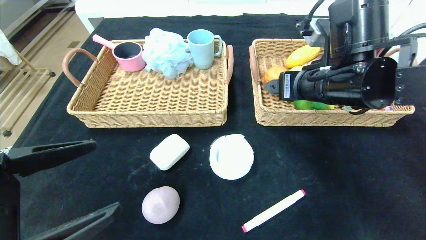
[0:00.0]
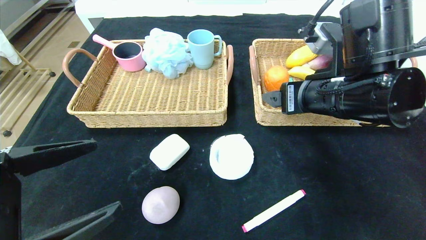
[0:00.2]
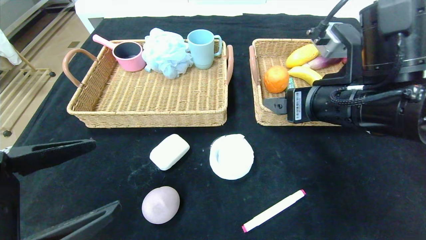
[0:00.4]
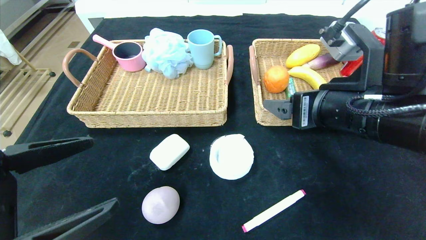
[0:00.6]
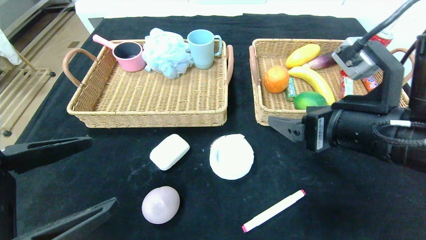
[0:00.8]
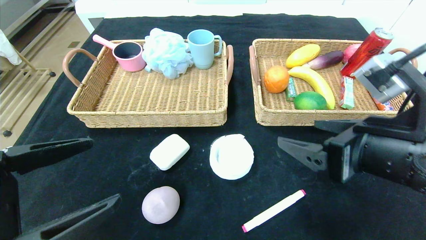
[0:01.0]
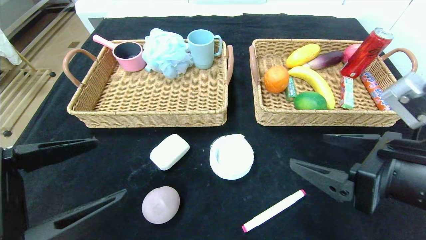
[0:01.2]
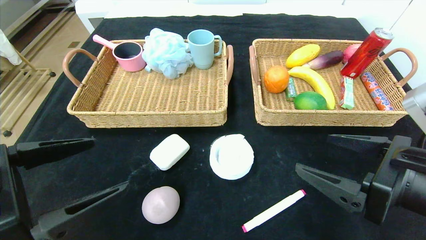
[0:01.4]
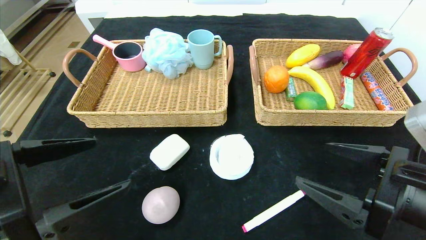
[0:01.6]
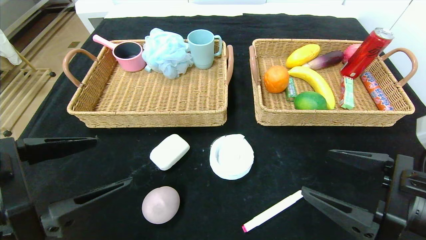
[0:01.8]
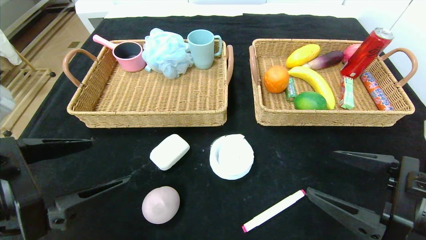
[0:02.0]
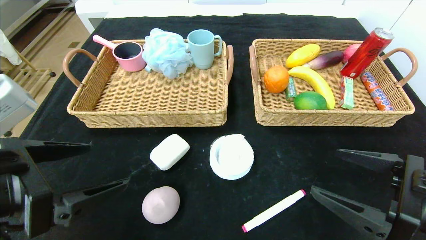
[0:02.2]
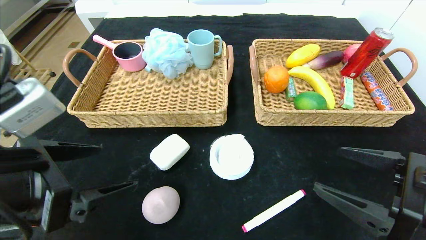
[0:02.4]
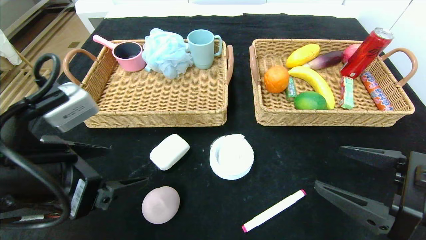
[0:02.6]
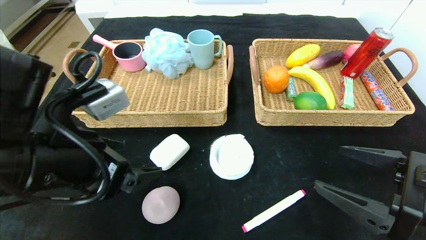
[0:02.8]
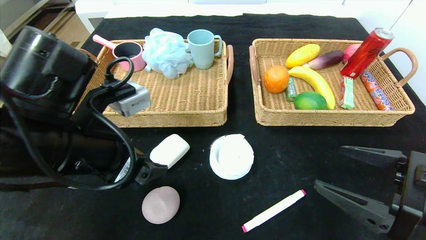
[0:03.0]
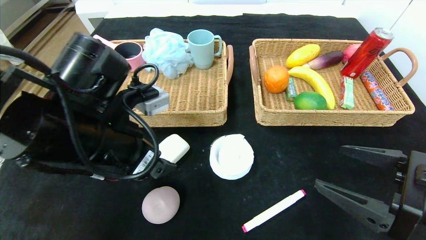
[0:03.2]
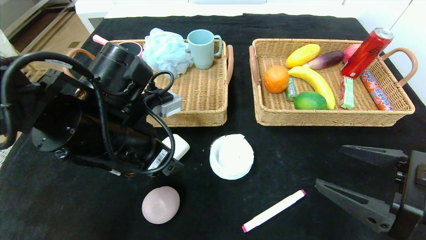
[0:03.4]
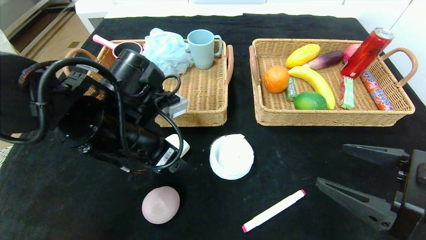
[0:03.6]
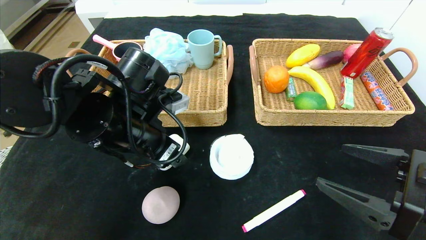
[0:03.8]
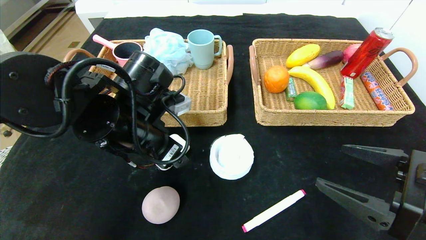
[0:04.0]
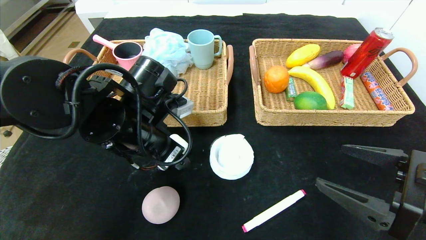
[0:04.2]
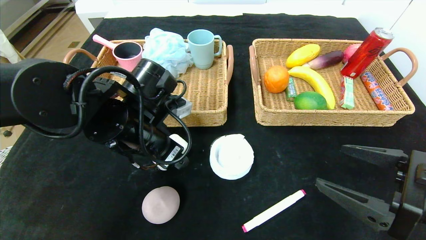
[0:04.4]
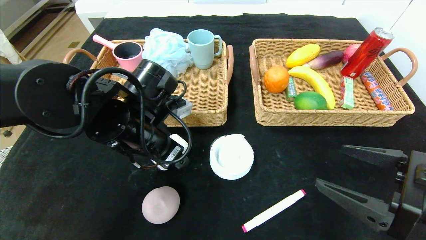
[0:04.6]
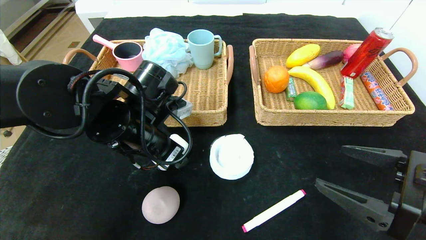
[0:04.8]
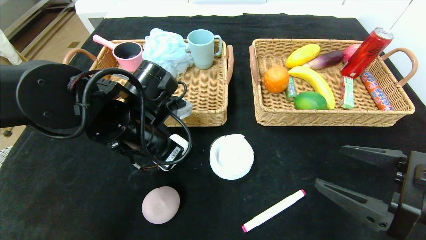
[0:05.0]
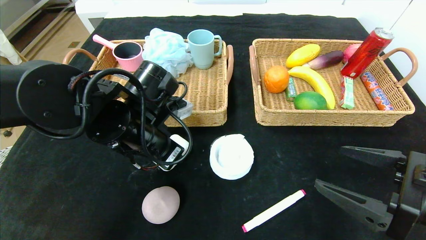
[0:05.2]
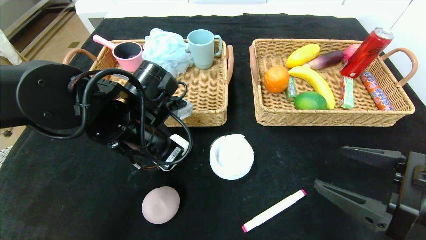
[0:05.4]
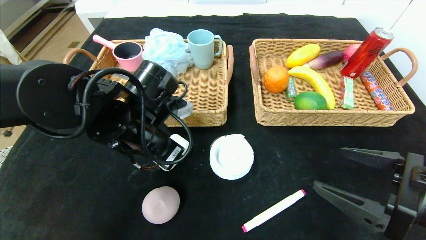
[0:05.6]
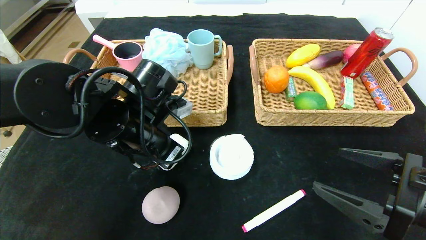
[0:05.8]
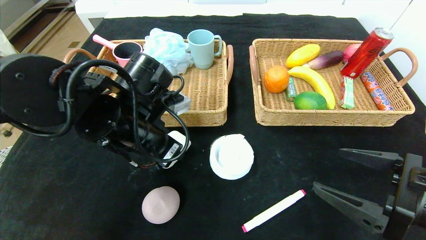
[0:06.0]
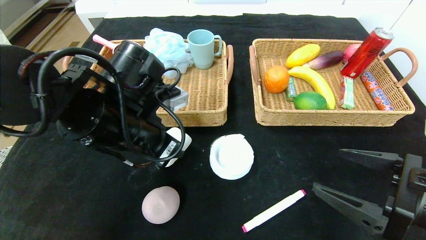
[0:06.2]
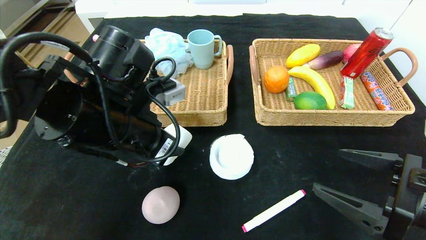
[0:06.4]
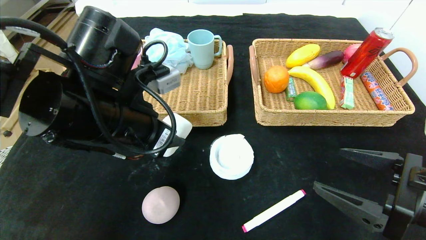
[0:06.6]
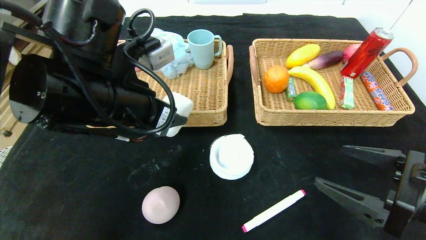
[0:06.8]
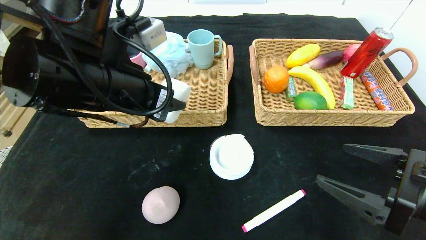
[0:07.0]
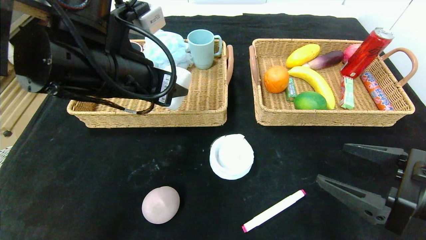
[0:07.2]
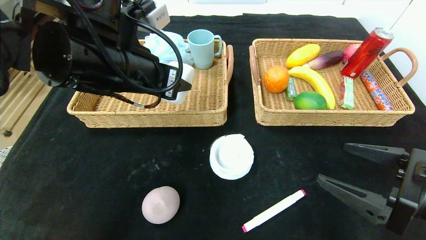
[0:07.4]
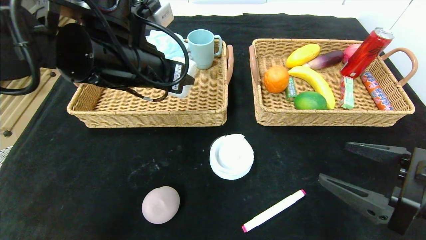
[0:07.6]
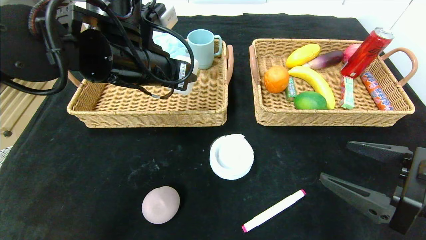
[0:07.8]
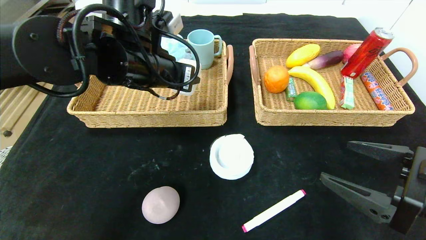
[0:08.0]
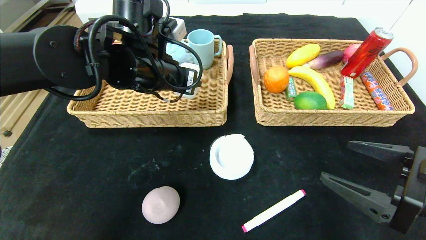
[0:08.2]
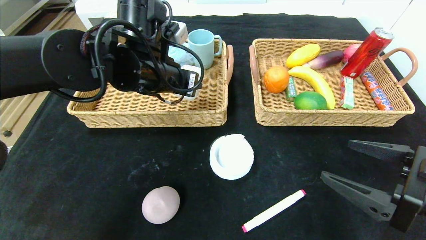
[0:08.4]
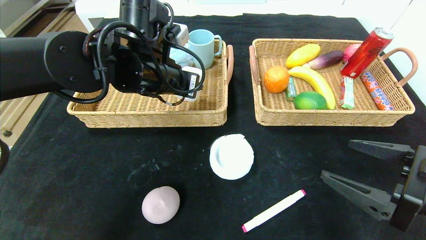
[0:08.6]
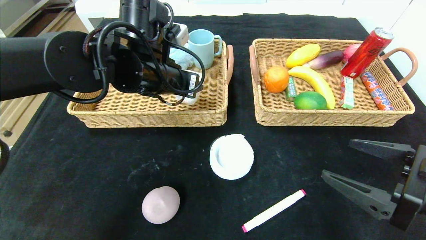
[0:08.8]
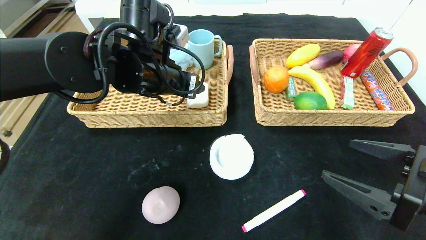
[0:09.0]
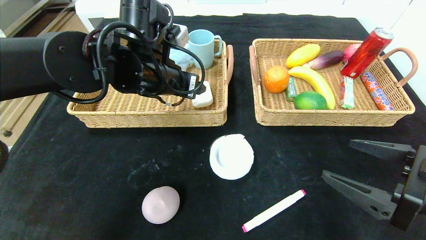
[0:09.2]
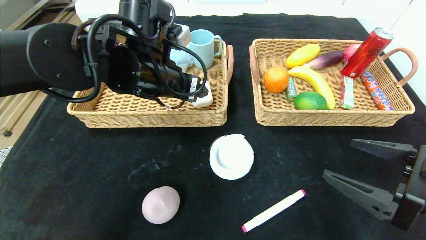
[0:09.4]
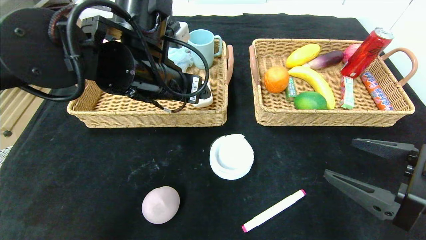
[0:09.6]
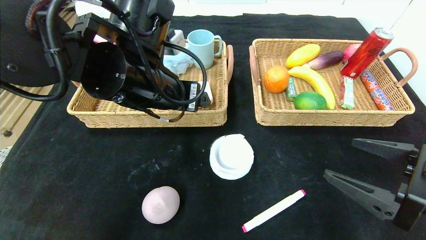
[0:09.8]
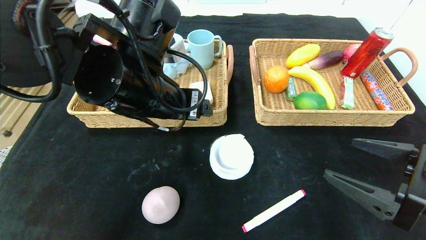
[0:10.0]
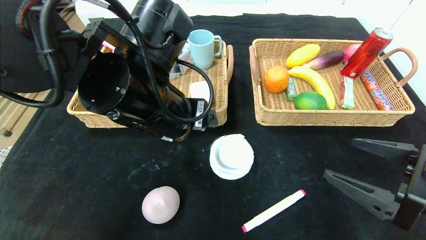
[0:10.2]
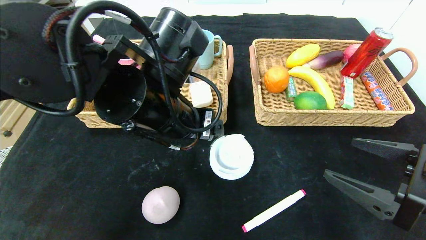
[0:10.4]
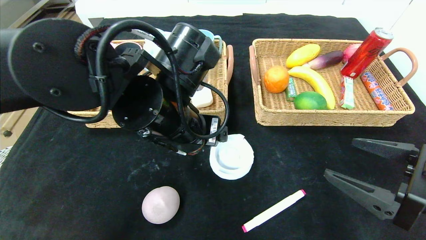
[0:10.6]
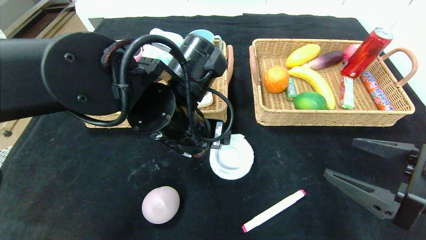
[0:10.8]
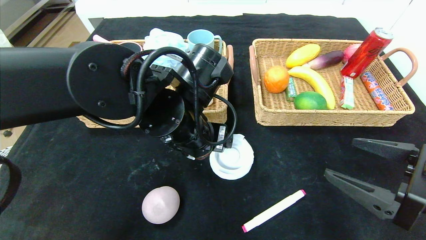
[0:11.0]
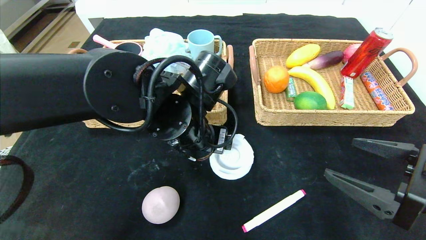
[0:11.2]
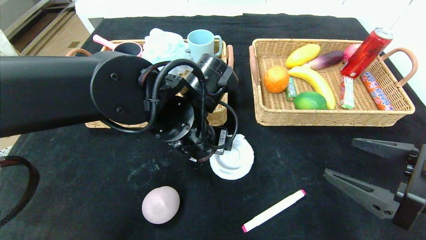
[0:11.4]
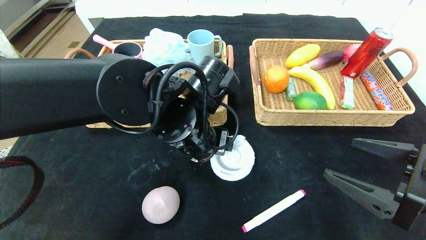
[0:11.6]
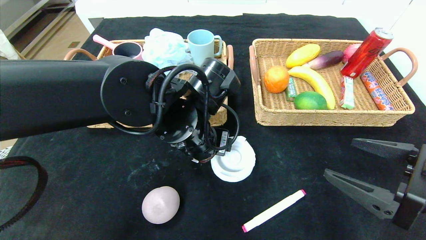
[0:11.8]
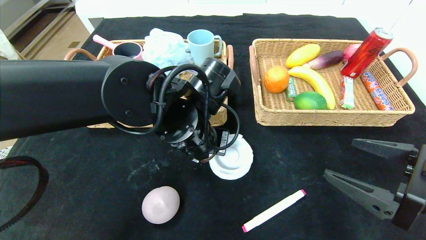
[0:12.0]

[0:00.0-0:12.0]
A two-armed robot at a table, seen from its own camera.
Step, 0:00.0 to 0:09.4: Grasp the white eraser and put it in the left basket.
0:00.0 to 0:01.6: The right gripper heads backward, downward and to the right, covering some 20 cm.
0:01.6 to 0:03.0: The left gripper travels forward and to the right by some 10 cm.
0:03.0 to 0:04.4: The left gripper shifts roughly 5 cm forward.
0:04.4 to 0:06.0: The left gripper closes its fingers.
0:06.0 to 0:07.6: The left gripper goes about 10 cm upward.
0:07.6 to 0:09.0: The left gripper changes place by about 5 cm.
0:09.0 to 0:10.4: The left gripper moves backward, approximately 10 cm.
0:10.4 to 0:12.0: The left gripper ends up about 5 cm from where it was, and closes.

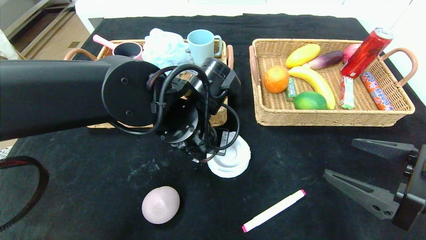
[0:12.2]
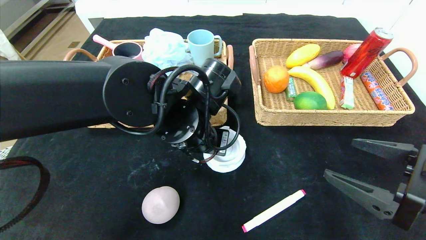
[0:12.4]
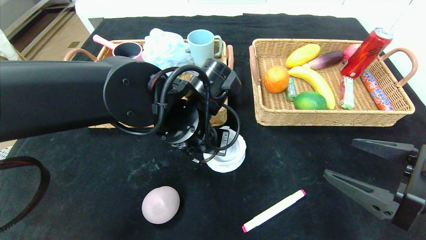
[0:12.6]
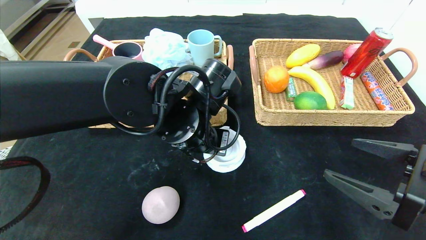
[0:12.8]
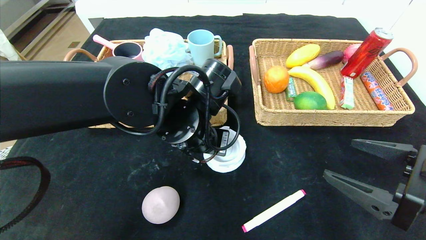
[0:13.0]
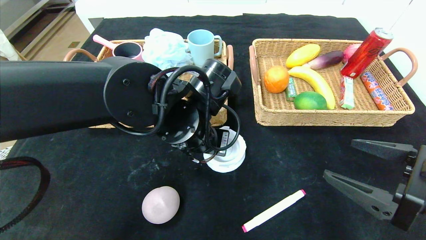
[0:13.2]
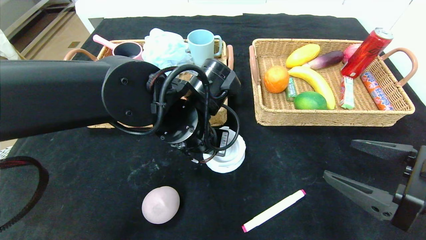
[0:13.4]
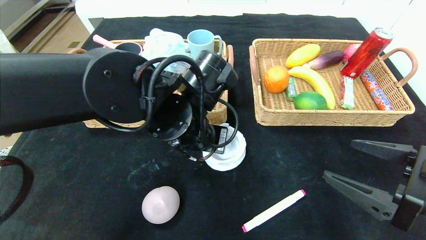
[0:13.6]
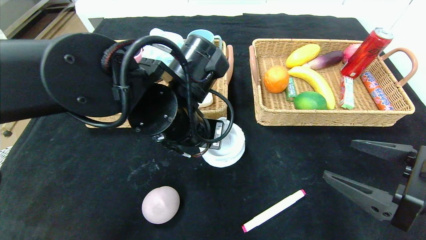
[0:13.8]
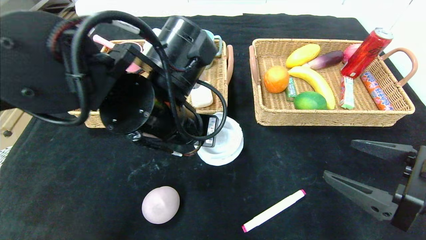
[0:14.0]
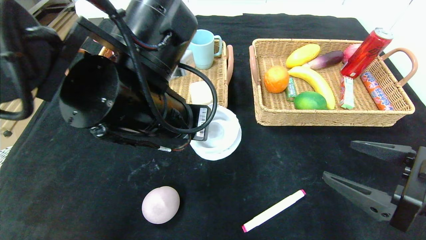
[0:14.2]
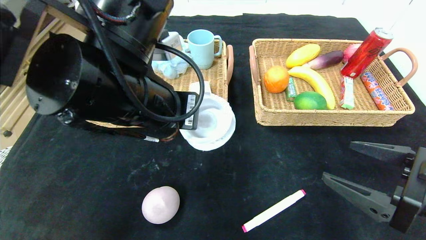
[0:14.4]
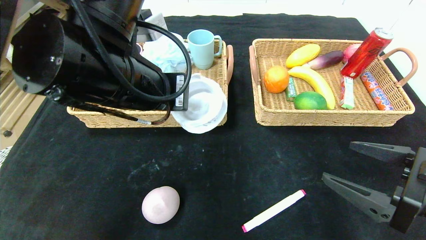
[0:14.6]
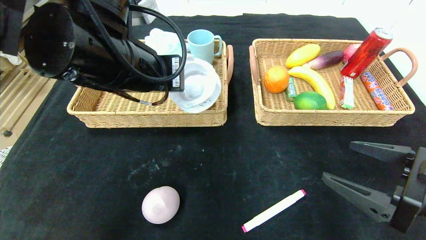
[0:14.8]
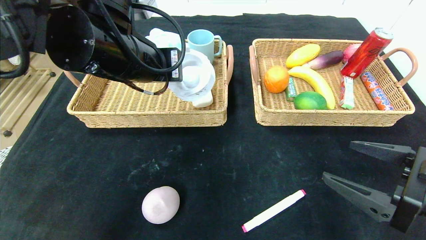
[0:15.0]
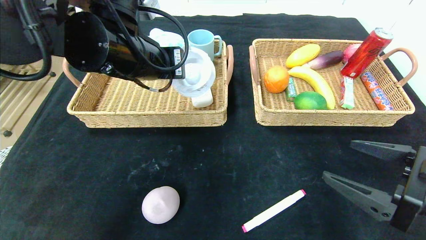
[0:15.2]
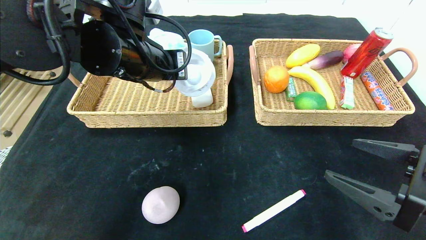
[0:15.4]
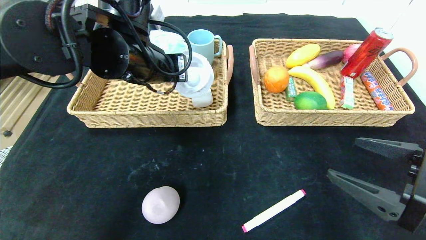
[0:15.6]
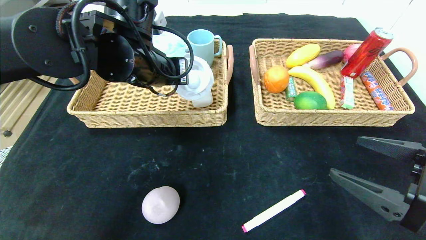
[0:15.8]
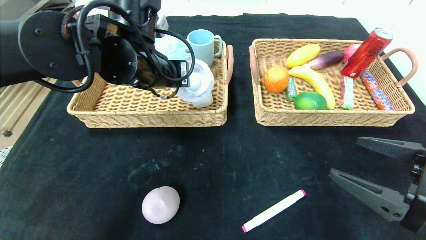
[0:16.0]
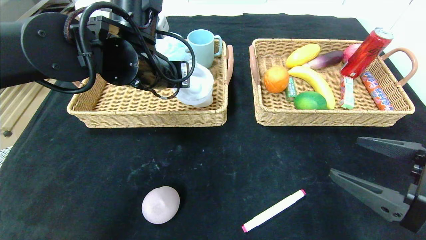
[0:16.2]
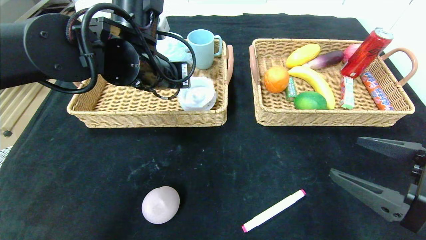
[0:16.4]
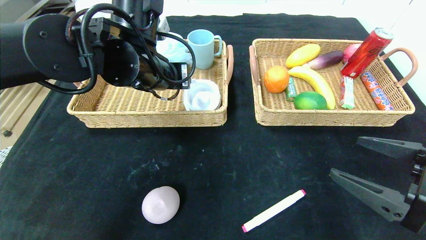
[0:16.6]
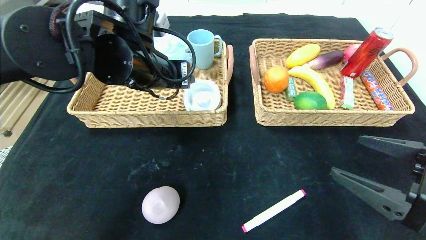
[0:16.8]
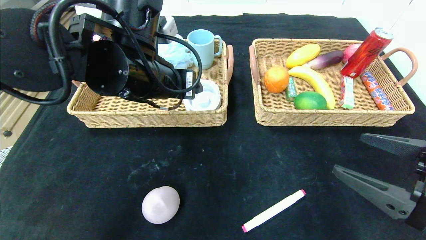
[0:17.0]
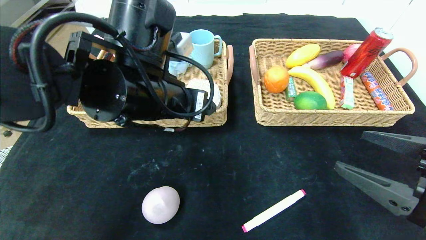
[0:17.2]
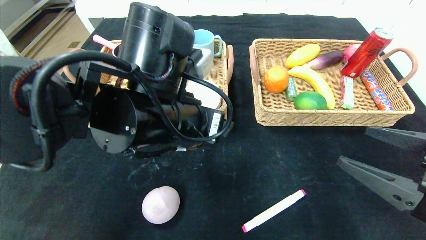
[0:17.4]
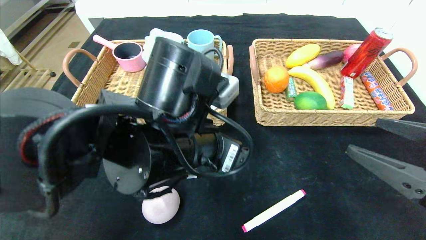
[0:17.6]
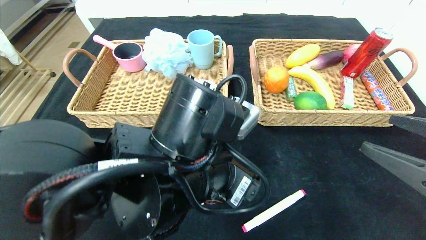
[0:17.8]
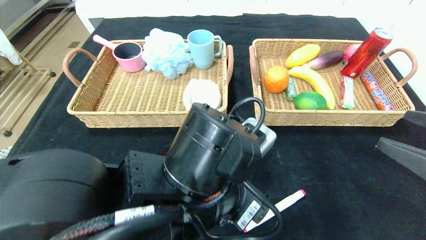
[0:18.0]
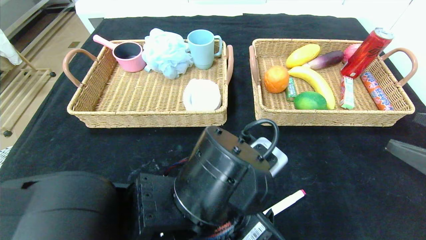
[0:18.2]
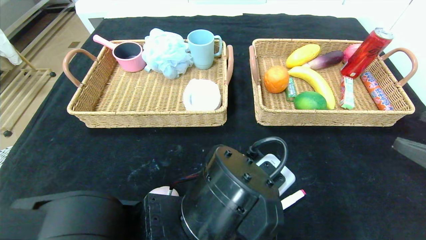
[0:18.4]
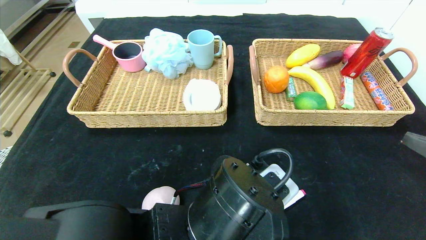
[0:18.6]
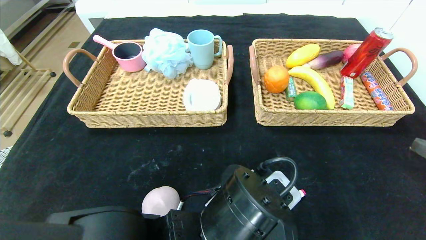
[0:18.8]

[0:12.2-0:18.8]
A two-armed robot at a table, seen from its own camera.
Step, 0:12.2 to 0:16.2: Grasp the tape and put it in the left basket.
0:12.2 to 0:13.8: The left gripper closes up.
0:13.8 to 0:15.4: The left gripper travels upward, to the left and forward by about 10 cm.
0:15.4 to 0:17.2: The left gripper is displaced backward by some 5 cm, and opens.
0:17.2 to 0:18.8: The left gripper is displaced downward, backward and to the right by about 20 cm; the right gripper changes place by some 5 cm.
